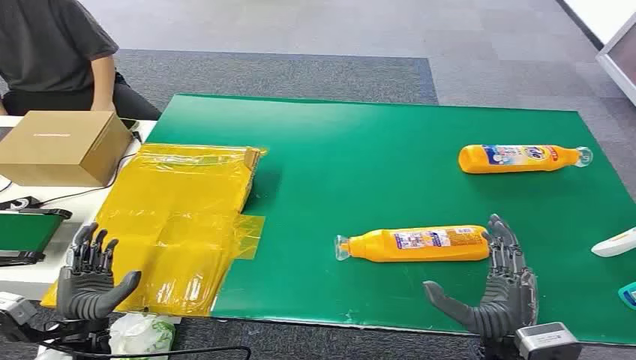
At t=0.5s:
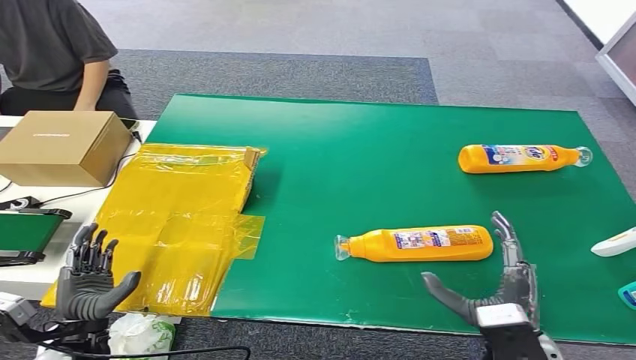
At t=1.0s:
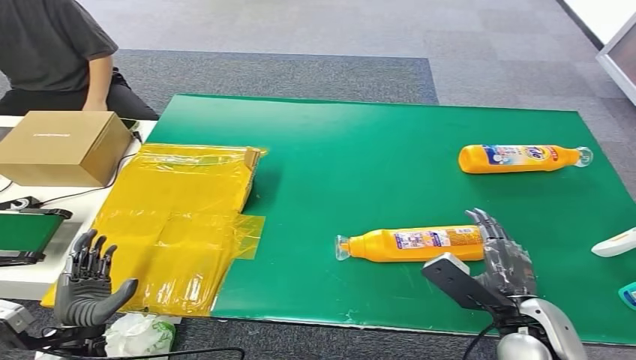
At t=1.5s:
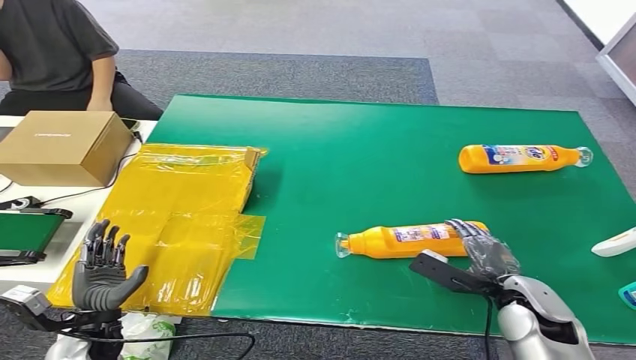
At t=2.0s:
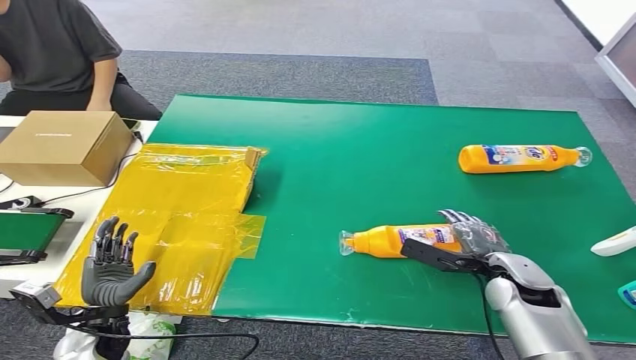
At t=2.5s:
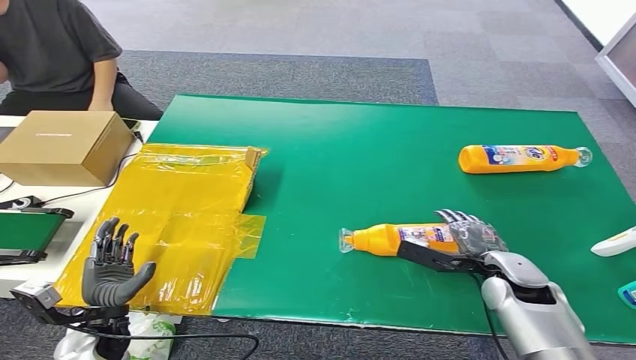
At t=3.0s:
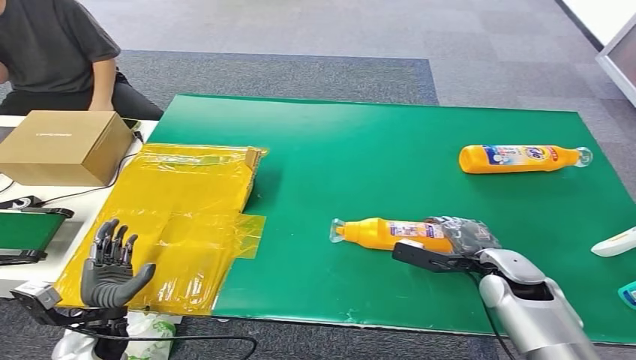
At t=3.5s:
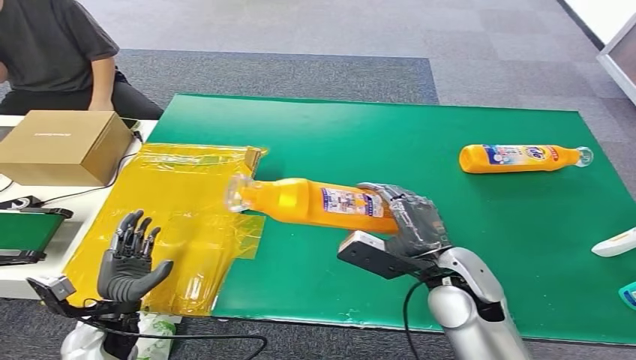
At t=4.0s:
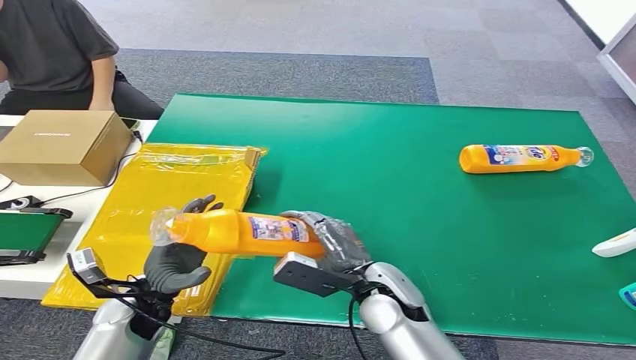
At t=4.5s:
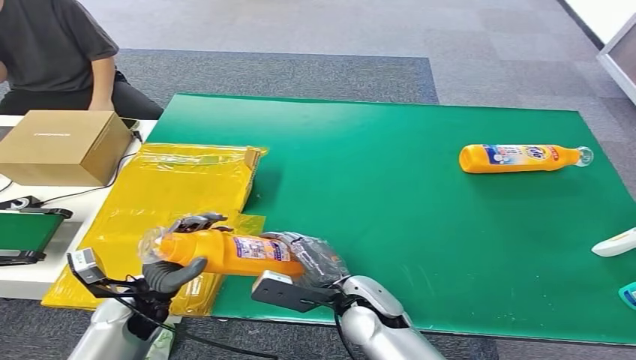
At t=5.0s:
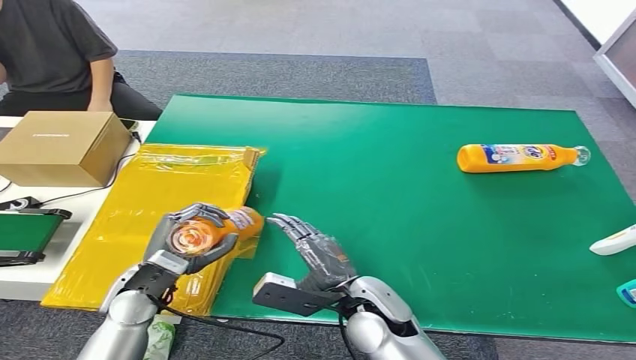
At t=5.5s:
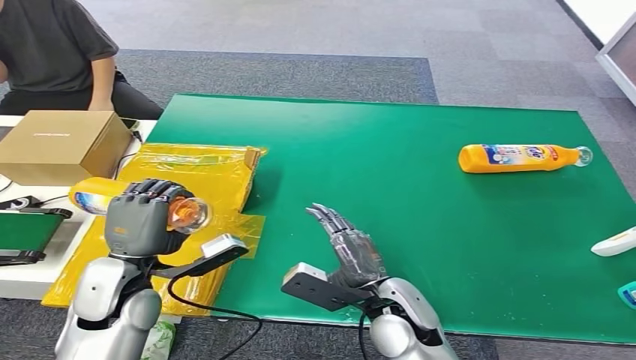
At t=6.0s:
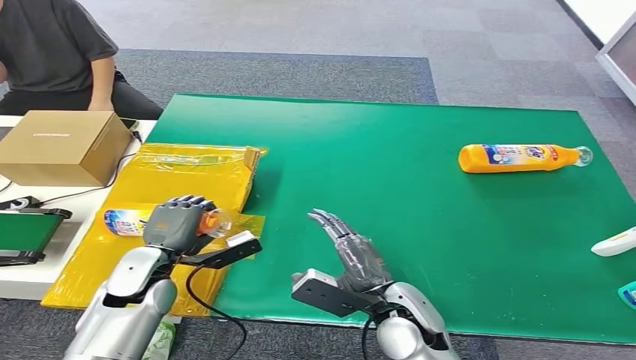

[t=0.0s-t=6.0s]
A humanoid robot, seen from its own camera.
Step, t=0.0s to t=3.5s: Pick up the bottle from the table.
Step, t=4.0s to t=6.0s: Turn the bottle to the front side.
t=4.0s to t=6.0s: The left hand reaches approximately 10 cm upward, then returns.
